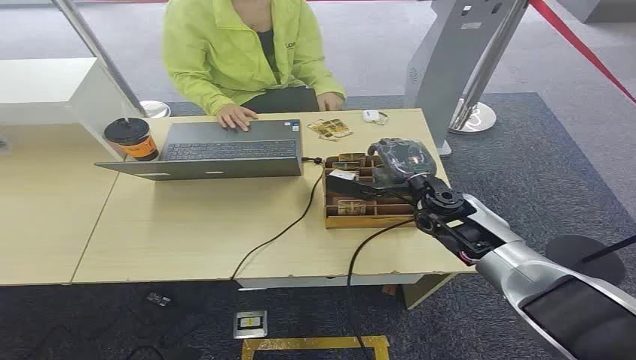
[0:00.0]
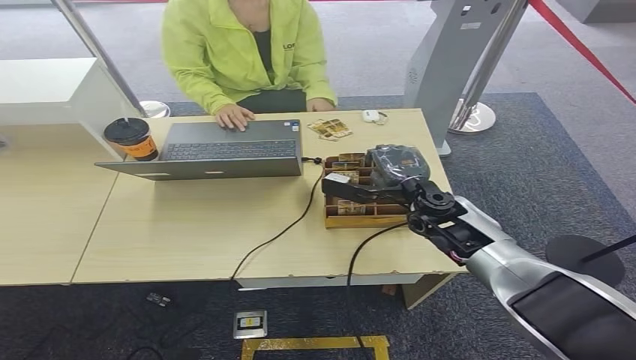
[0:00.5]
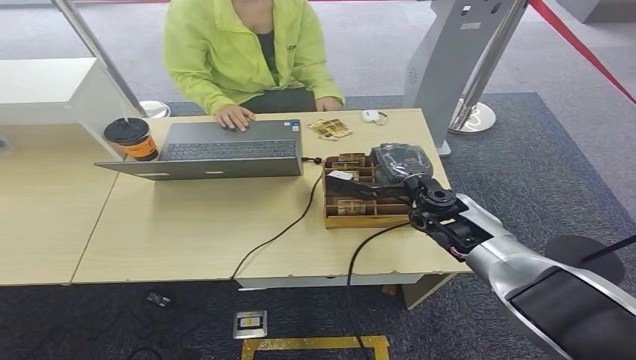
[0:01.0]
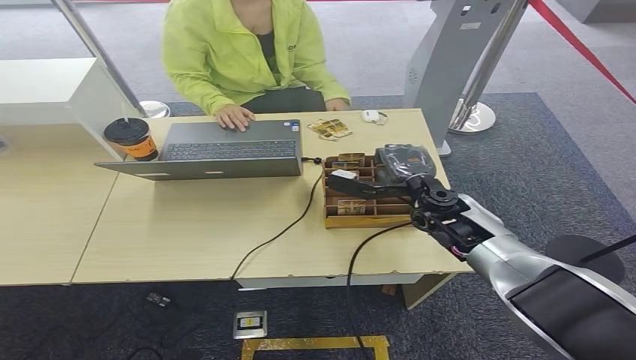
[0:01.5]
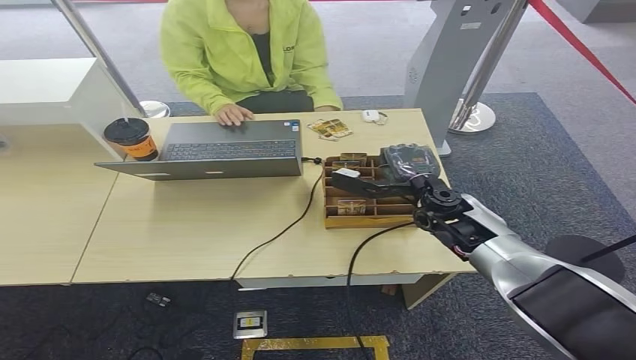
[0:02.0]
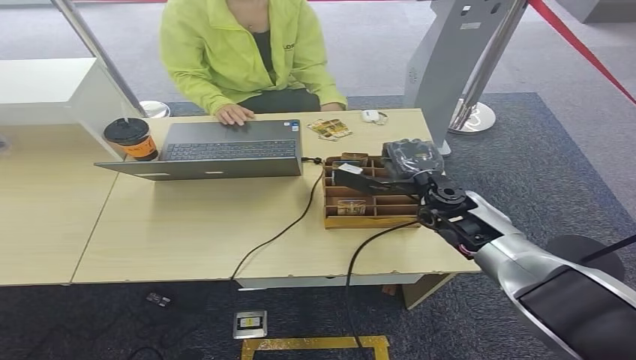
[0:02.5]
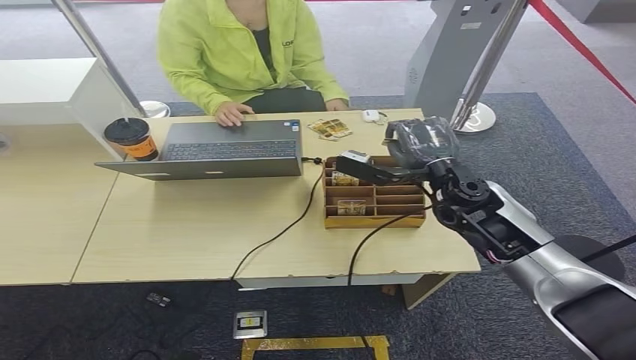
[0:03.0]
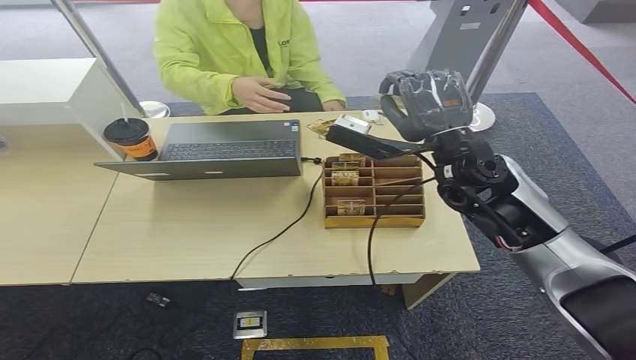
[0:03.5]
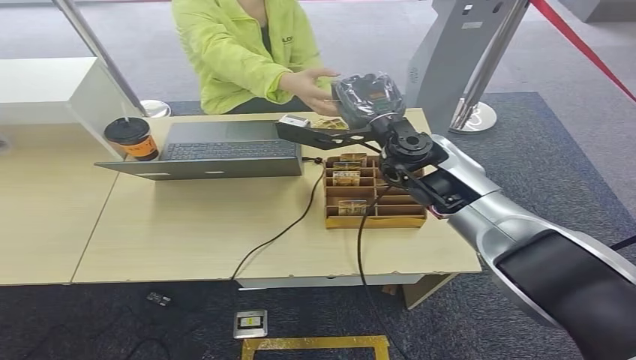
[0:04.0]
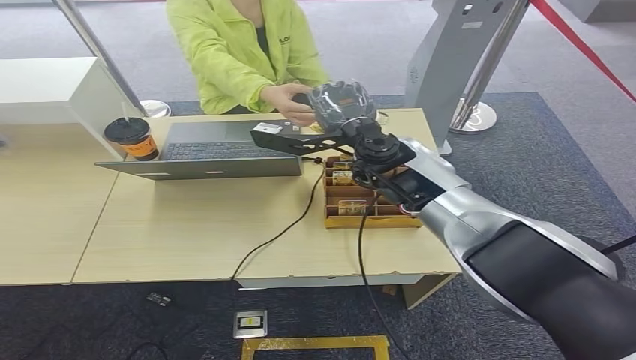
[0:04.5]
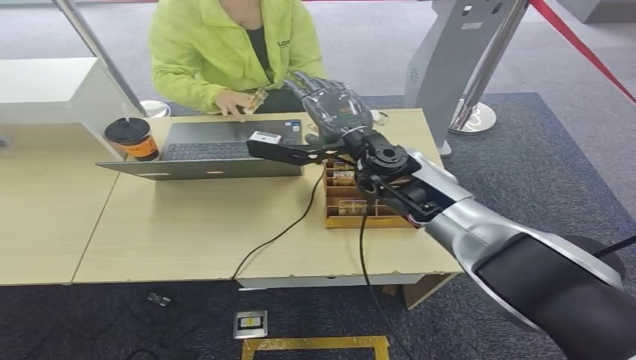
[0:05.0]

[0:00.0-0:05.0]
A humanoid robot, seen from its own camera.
Step, 0:00.0 to 0:03.0: Pick up the key card from the card box.
Step, 0:03.5 to 0:05.0: Hand the key card to the target.
0:02.5 to 0:05.0: The right hand heads upward and to the left, covering about 15 cm.
